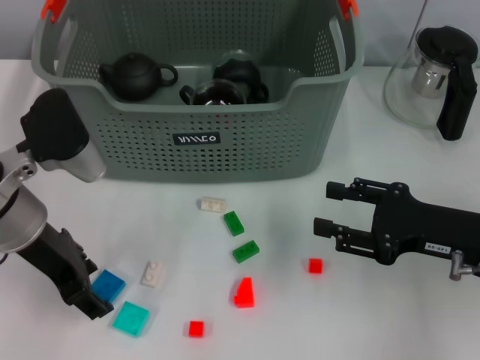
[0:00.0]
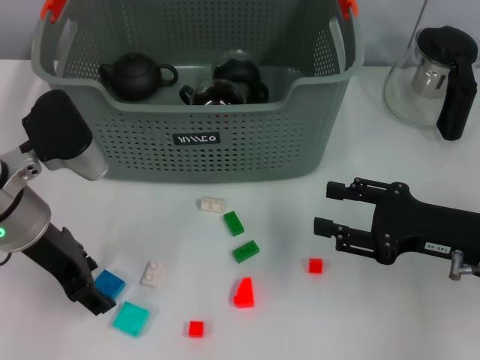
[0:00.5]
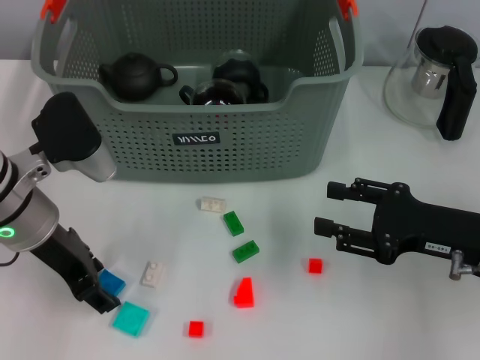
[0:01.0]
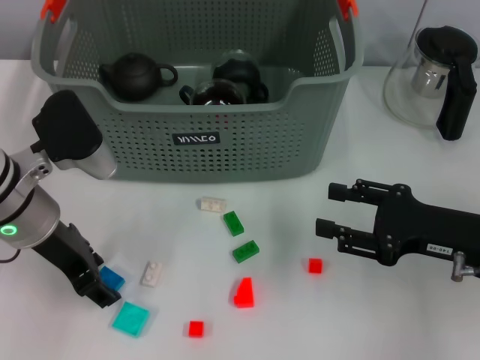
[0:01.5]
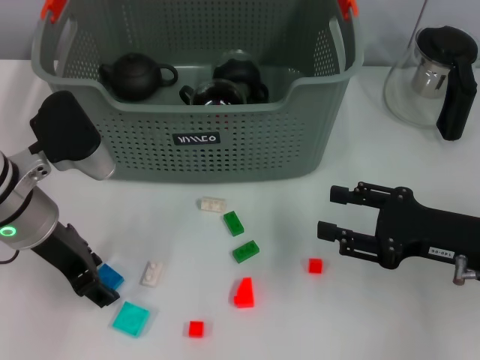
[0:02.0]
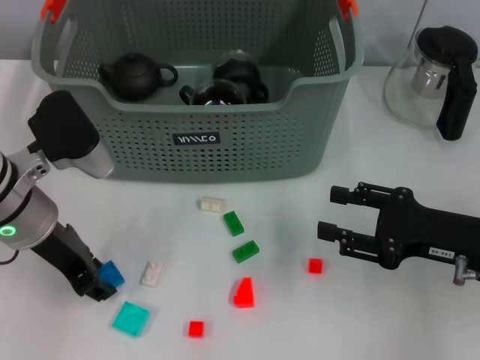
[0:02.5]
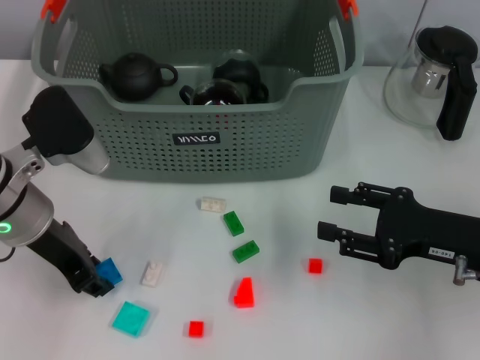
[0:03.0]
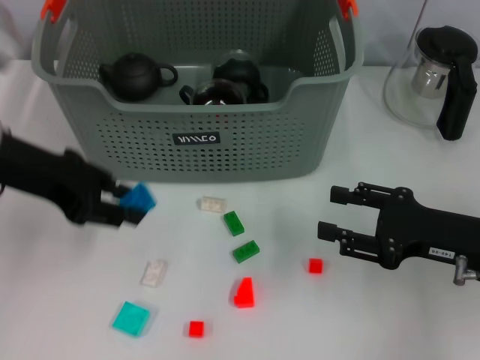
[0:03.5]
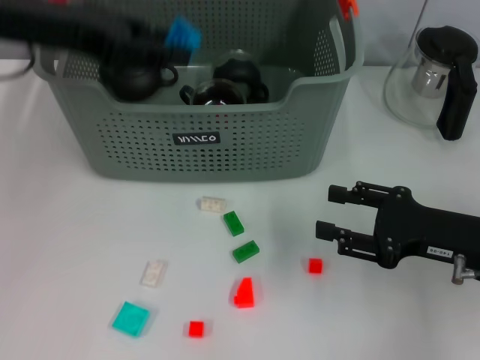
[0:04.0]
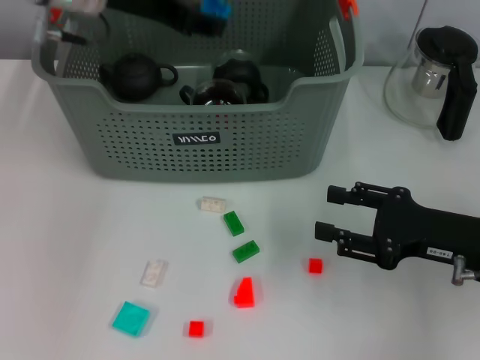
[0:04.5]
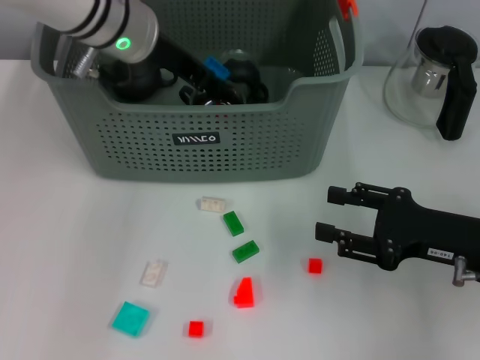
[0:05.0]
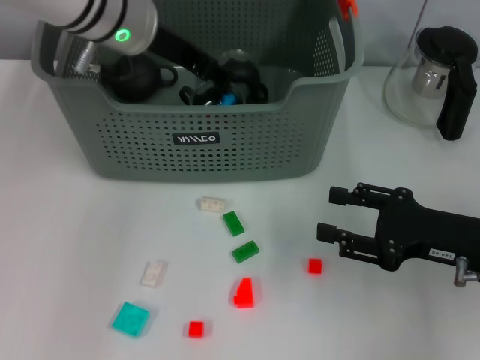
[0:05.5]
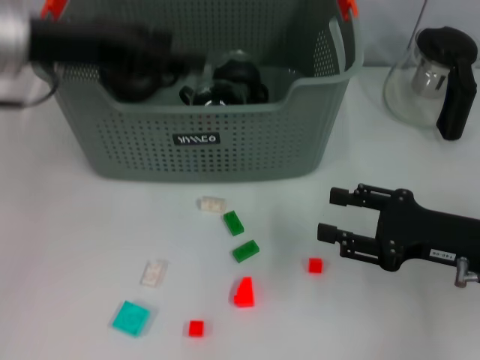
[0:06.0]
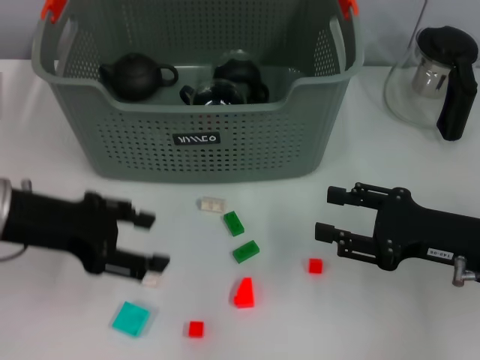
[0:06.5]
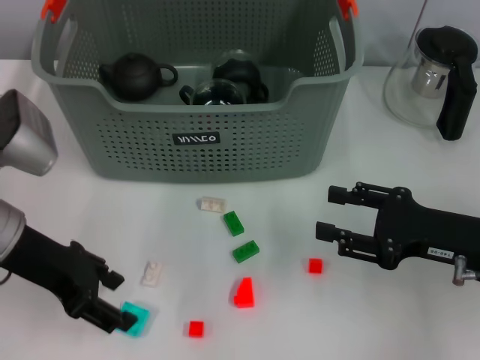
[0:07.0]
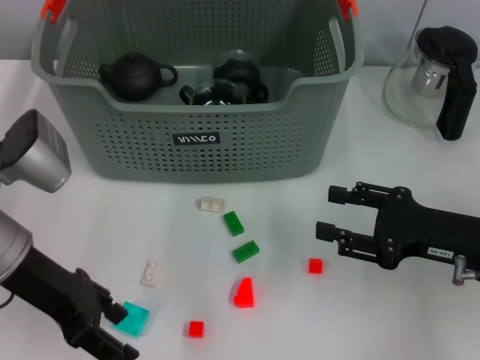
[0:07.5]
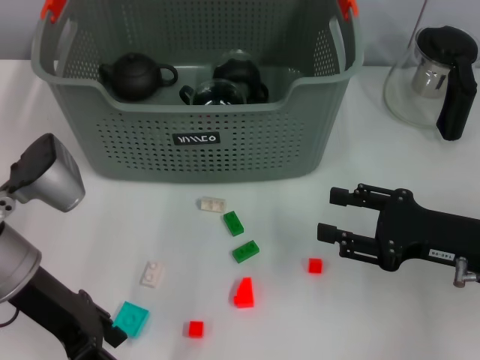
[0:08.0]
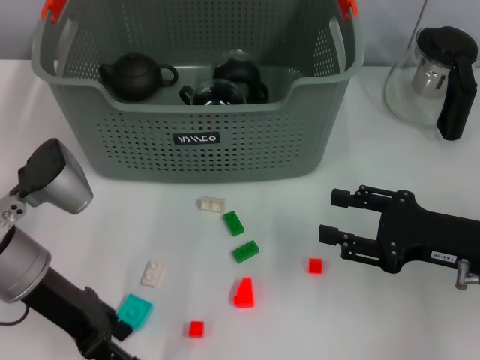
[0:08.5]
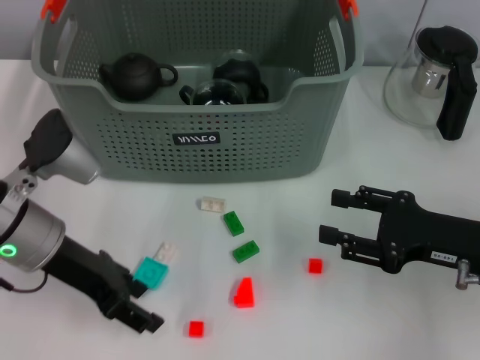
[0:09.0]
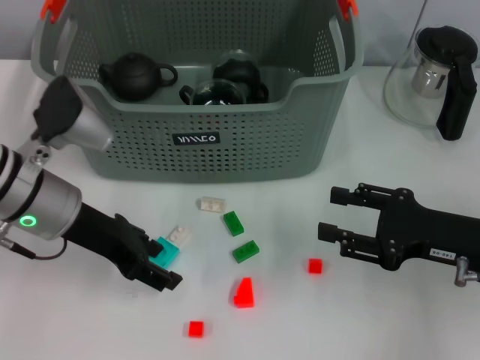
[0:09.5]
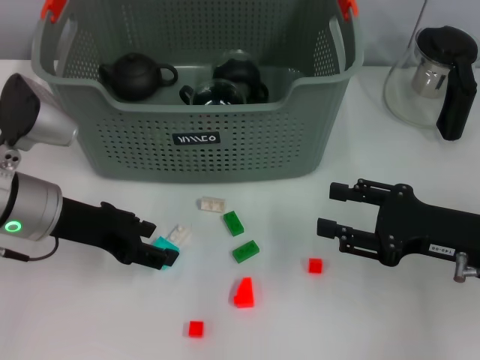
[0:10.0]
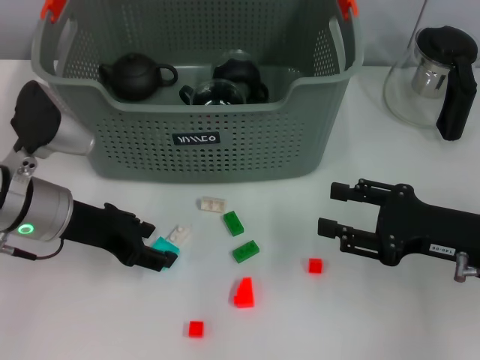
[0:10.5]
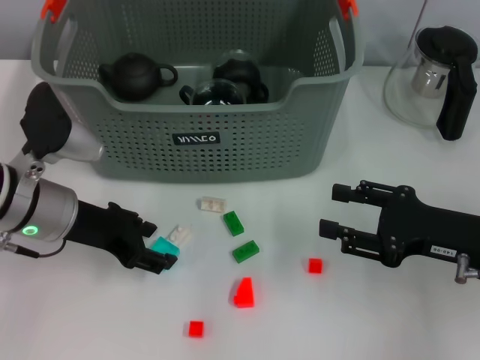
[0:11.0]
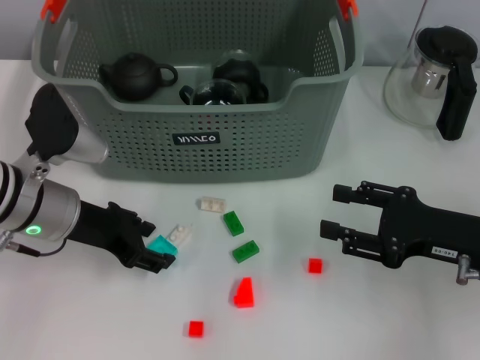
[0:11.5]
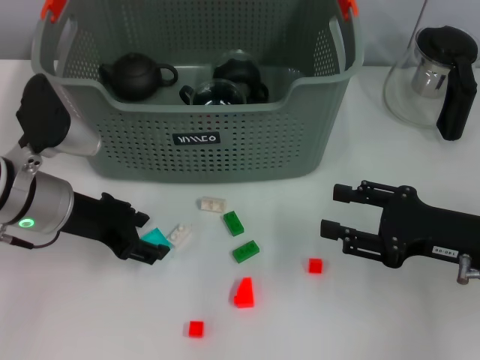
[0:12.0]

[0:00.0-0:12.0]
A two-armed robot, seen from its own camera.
Task of the whole recording: pick up the teacup on the table and place it into the storage bin, pick up the block on the table and place it into the storage bin.
Step, 0.0 to 2.5 s: Grasp the dark blue block with left gripper.
Step, 3.0 to 5.5 s: Place the dark blue block in the storage box with left gripper.
0.0 to 2.0 s: The grippers move only a little.
2.0 to 4.0 s: The left gripper shifts about 15 cm upward.
4.0 to 6.0 s: The left gripper goes to the right and returns, approximately 10 cm each way, and opens its fingers.
6.0 to 8.0 s: The left gripper shifts roughly 15 cm downward and backward.
10.0 to 12.0 s: There are only small adjustments of the grippers.

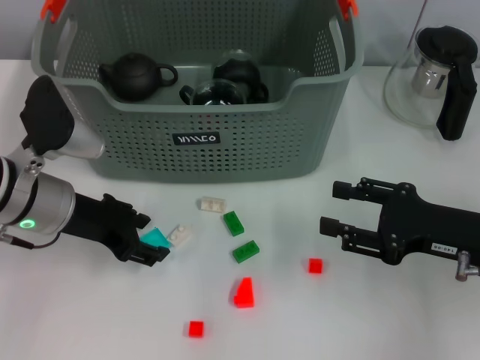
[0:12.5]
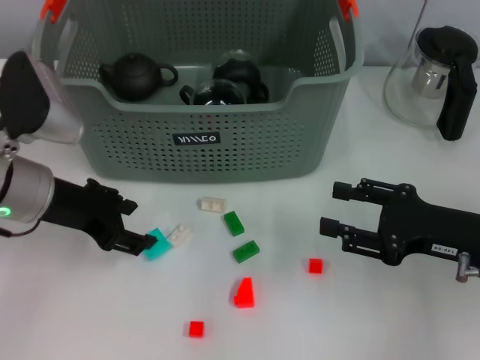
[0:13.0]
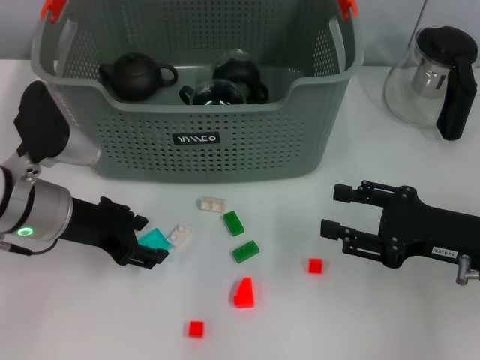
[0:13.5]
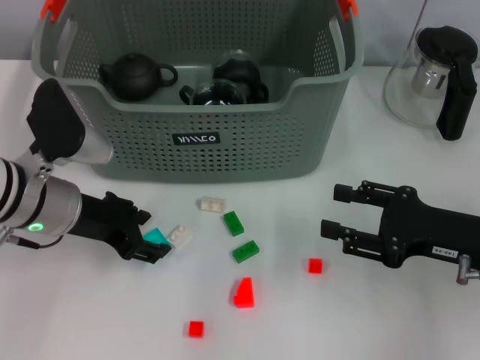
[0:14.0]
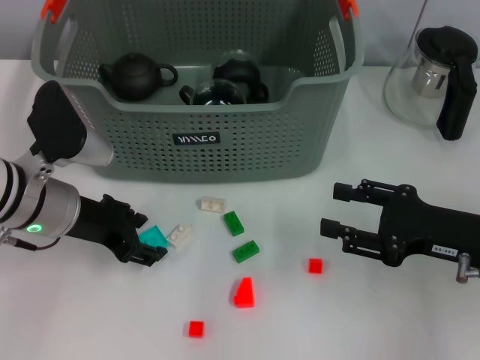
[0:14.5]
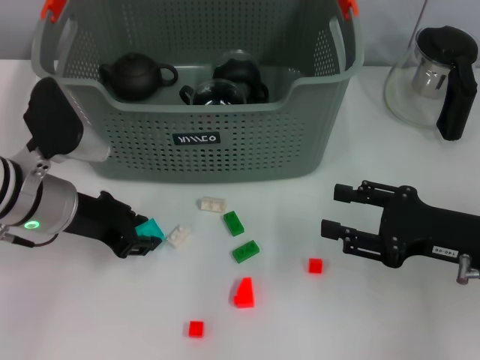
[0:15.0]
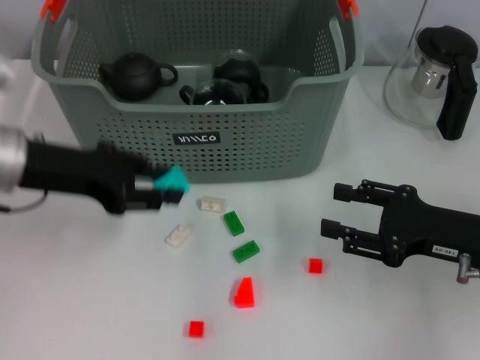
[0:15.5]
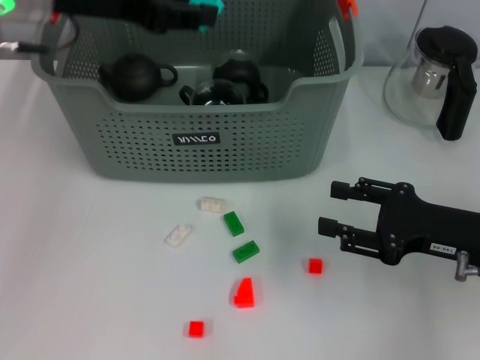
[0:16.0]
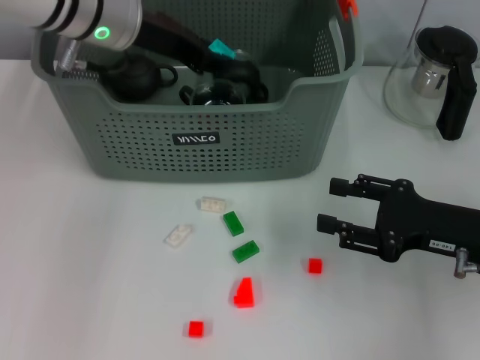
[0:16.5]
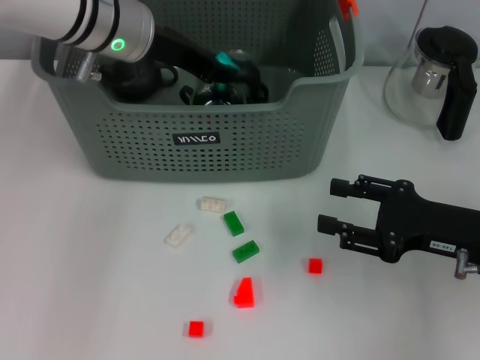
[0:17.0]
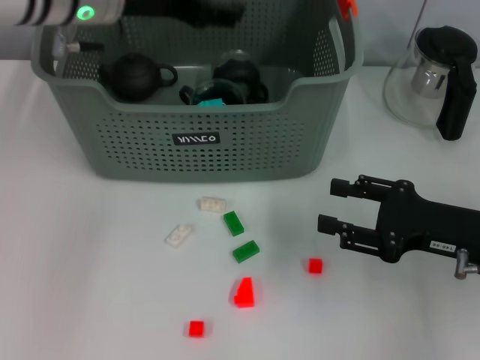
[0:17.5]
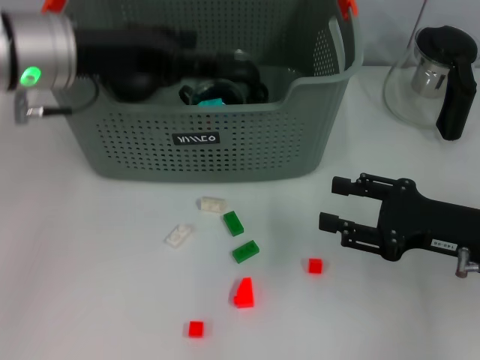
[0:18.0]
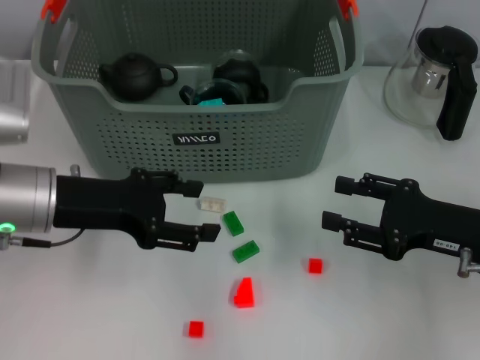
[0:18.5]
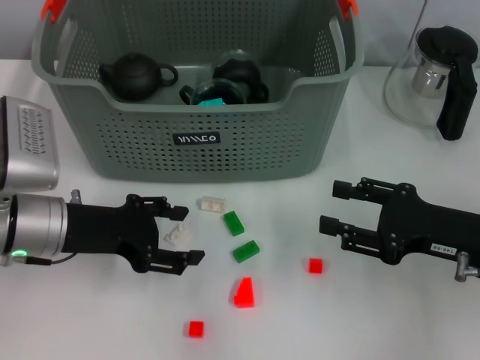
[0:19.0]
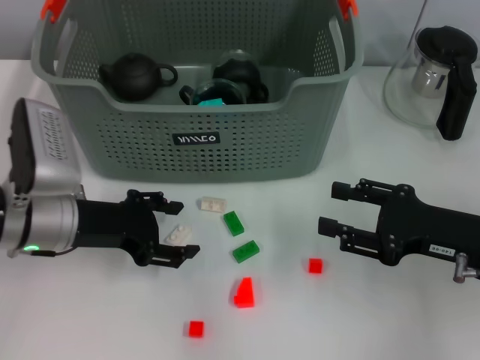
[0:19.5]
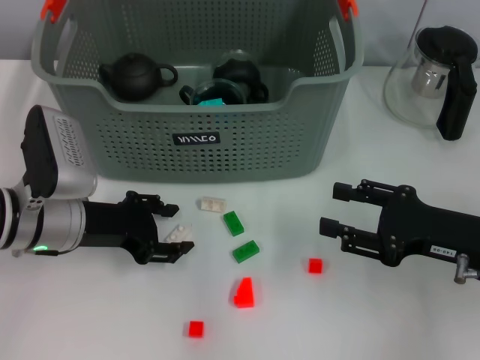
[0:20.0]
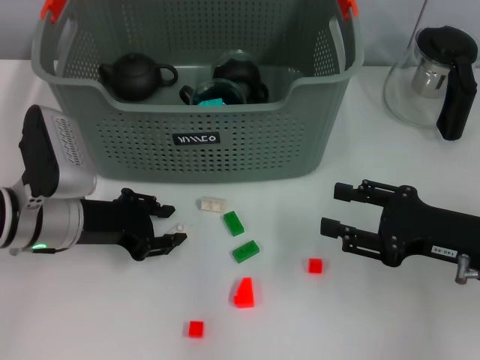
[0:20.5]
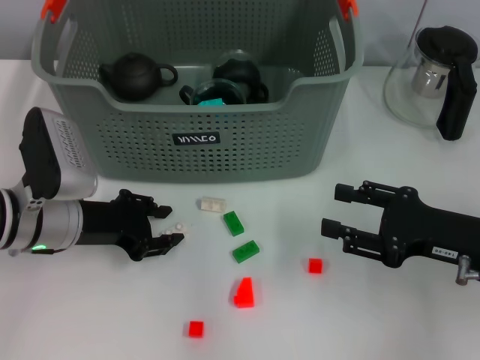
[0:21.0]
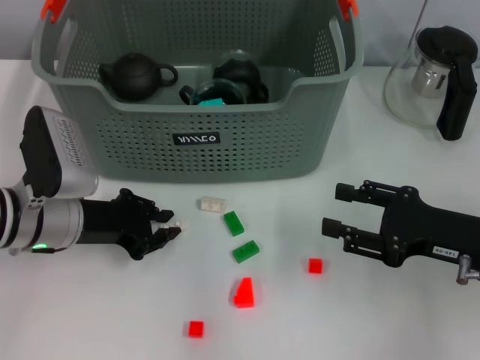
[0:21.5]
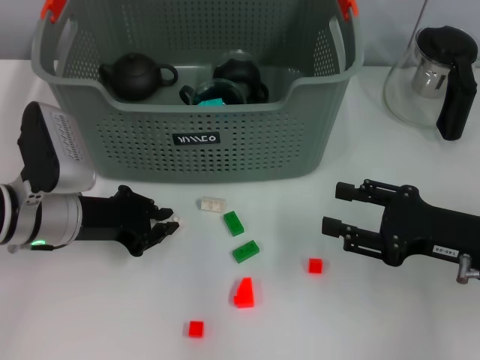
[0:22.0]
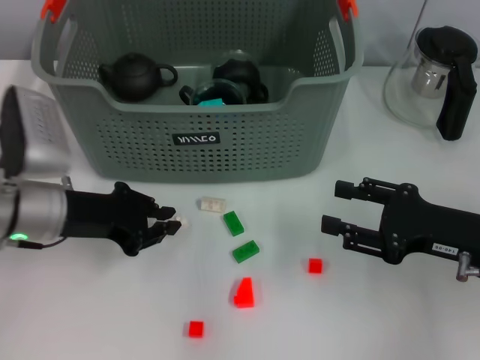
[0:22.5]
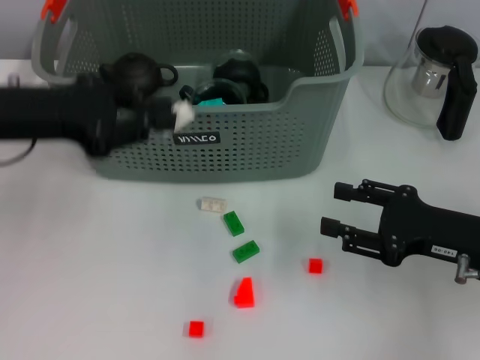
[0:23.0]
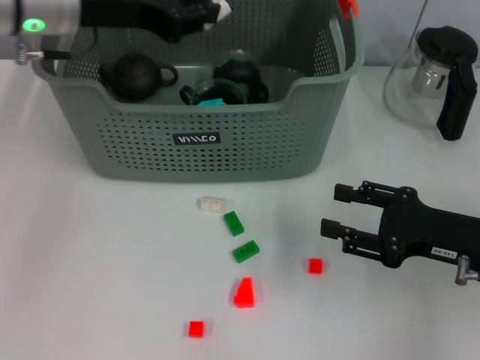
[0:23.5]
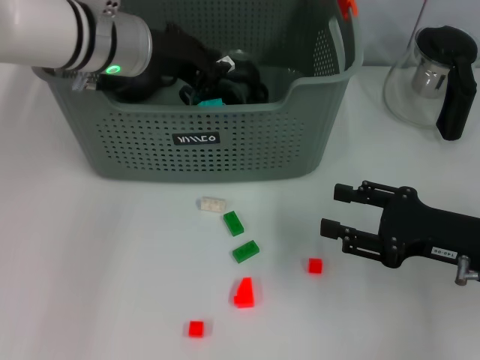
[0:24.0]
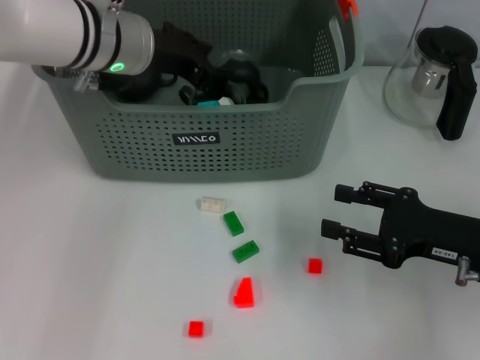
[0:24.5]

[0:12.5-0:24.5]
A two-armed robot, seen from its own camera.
Task of the whole recording: pick up the teacup on the table and place it into the storage bin, pick up the block on the table and place it into the storage bin.
Step, 12.5 to 14.5 s: Grasp the light blue block with left gripper.
Step, 15.0 to 17.0 s: Place the light blue block in the storage box with left gripper.
Step, 17.5 to 22.0 s: Grasp the white block with left gripper.
Step, 22.5 to 24.0 s: Place the white block in the storage box with left gripper.
12.5 to 14.5 s: The grippers move only a little.
14.5 to 16.5 s: The left gripper travels upward, forward and to the right by some 15 cm, and closes.
16.5 to 18.5 s: The left gripper shifts some 20 cm backward, downward and to the left, and opens up.
18.5 to 20.5 s: The left gripper is displaced downward by roughly 5 cm.
20.5 to 22.5 s: The left gripper closes up.
22.5 to 24.5 s: The left gripper moves forward, upward and to the right, about 15 cm.

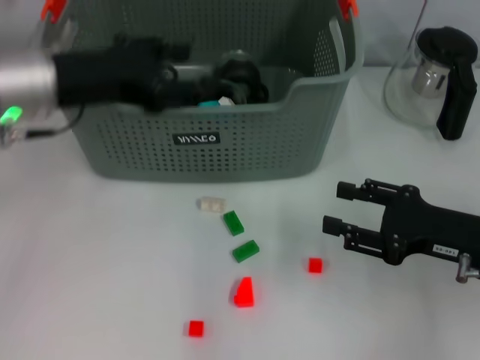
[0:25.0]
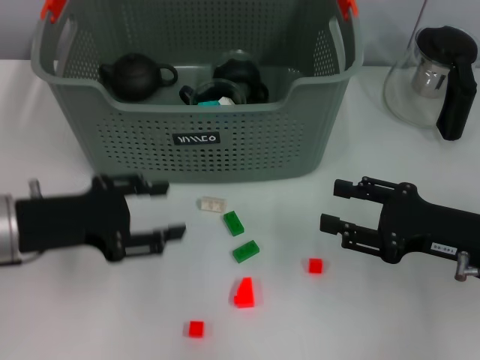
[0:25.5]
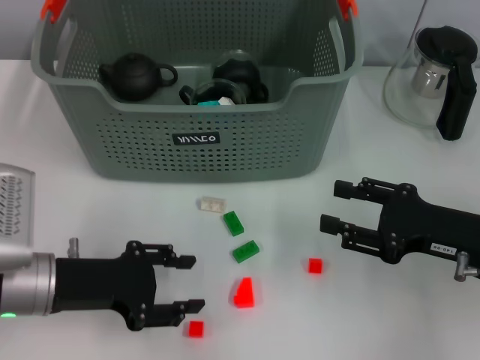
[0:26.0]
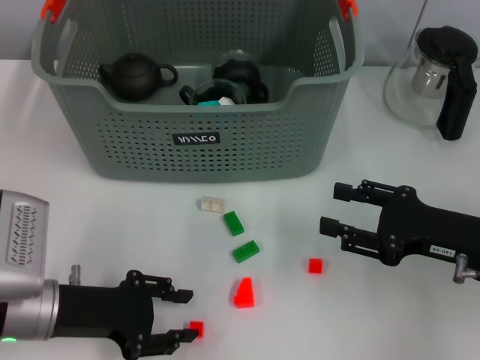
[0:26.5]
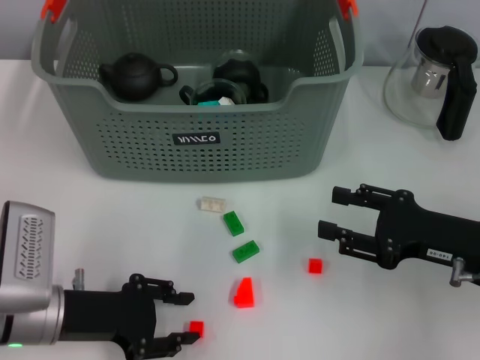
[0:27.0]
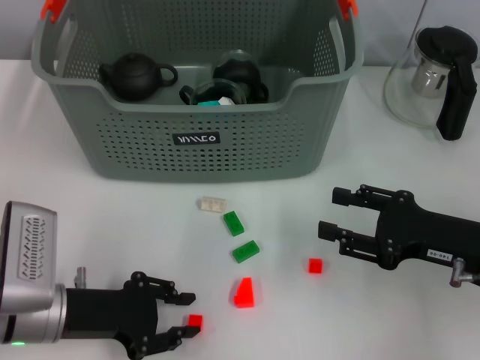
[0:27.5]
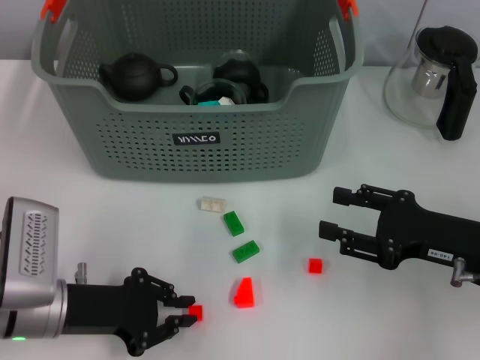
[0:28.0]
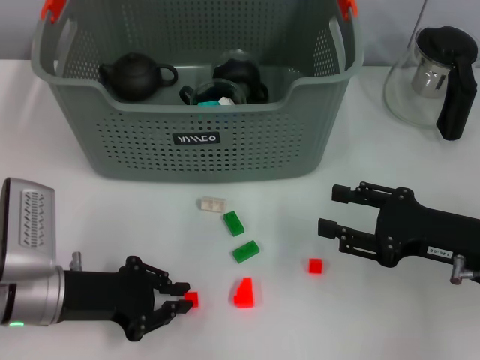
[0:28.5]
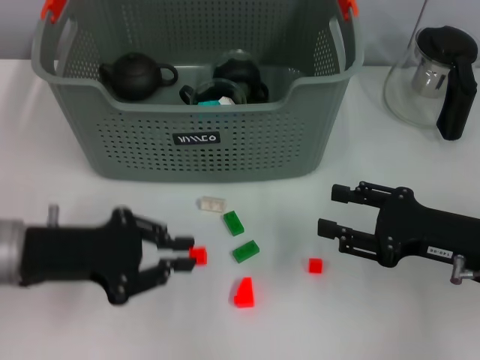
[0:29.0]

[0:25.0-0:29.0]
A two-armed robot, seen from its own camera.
Task of the whole recording: pick up the teacup on the table and place it into the storage bin, pick up the block on the table and place it into the storage bin.
Step, 25.0 to 27.5 s: Grasp the orange block with left gripper.
25.0 to 27.0 s: The left gripper shifts some 20 cm downward and backward.
27.0 to 29.0 s: The left gripper heads upward, covering approximately 5 cm.
